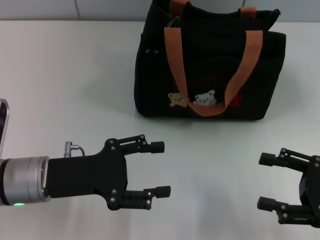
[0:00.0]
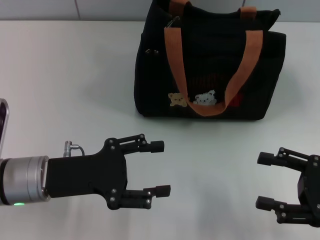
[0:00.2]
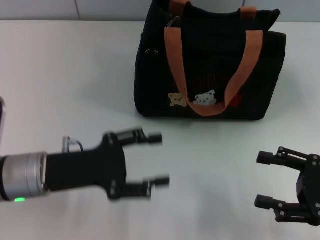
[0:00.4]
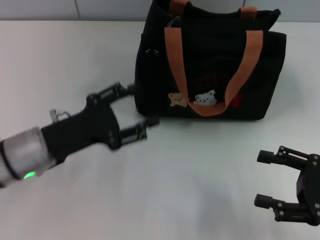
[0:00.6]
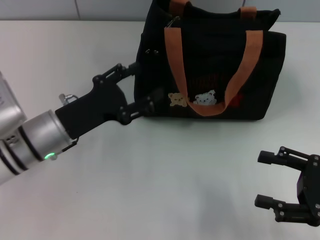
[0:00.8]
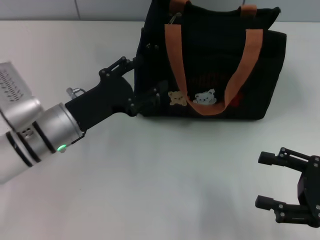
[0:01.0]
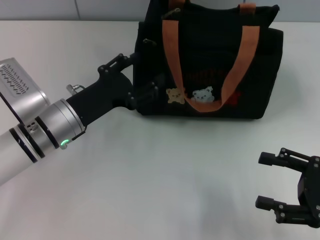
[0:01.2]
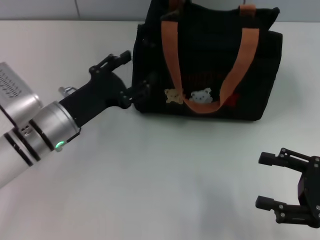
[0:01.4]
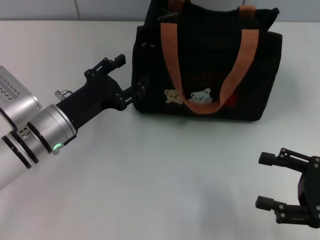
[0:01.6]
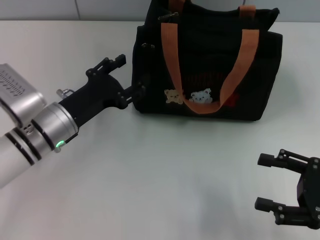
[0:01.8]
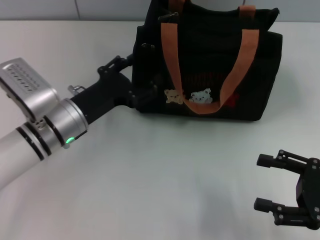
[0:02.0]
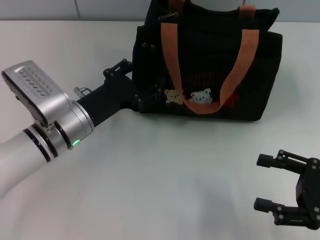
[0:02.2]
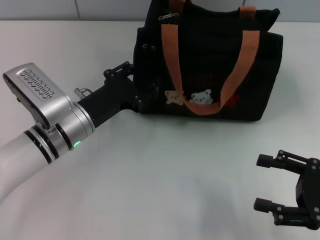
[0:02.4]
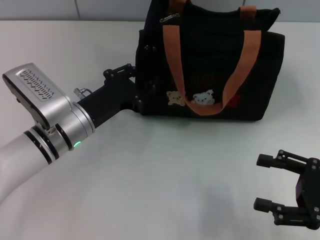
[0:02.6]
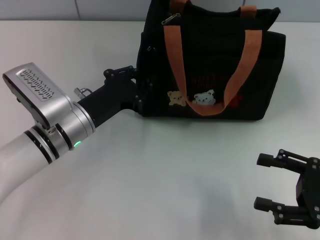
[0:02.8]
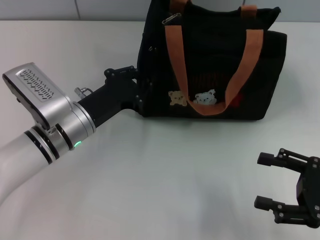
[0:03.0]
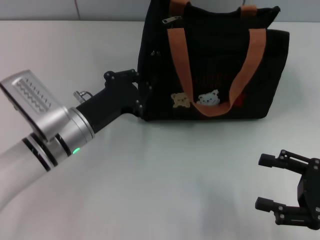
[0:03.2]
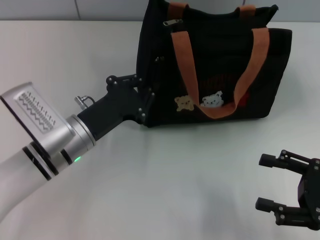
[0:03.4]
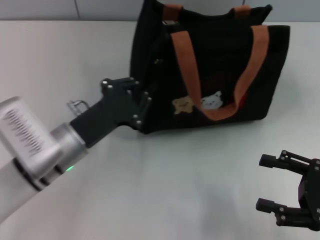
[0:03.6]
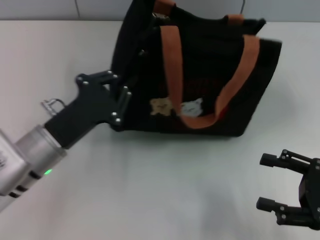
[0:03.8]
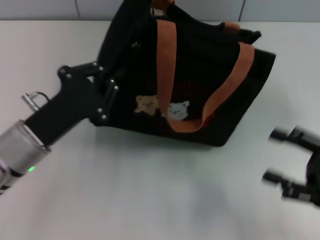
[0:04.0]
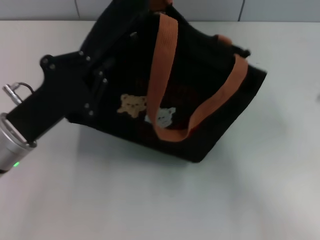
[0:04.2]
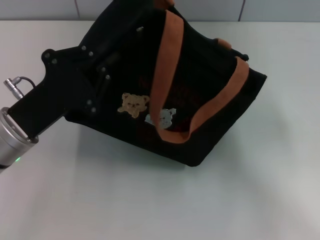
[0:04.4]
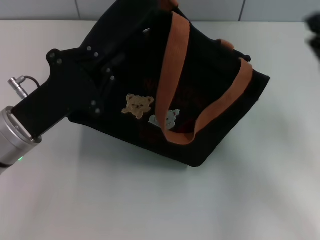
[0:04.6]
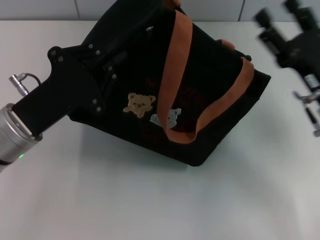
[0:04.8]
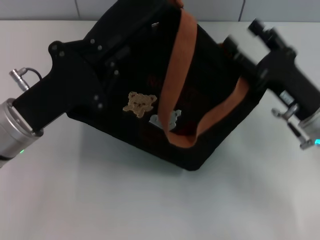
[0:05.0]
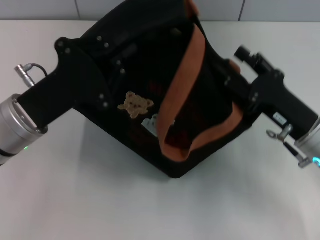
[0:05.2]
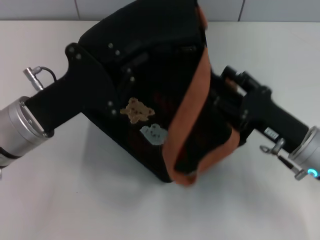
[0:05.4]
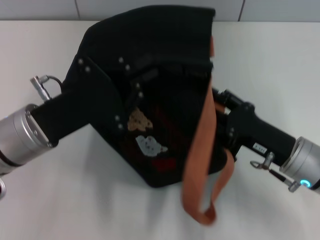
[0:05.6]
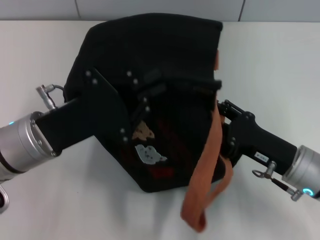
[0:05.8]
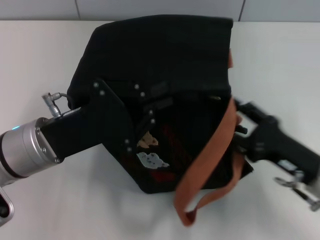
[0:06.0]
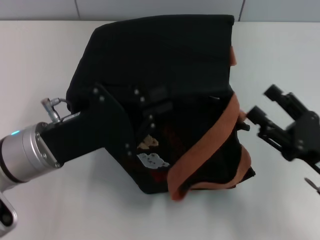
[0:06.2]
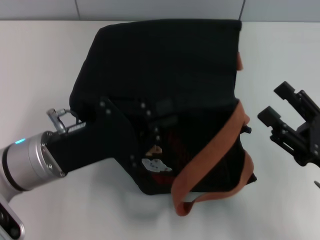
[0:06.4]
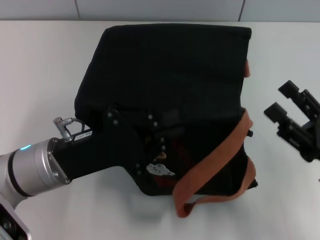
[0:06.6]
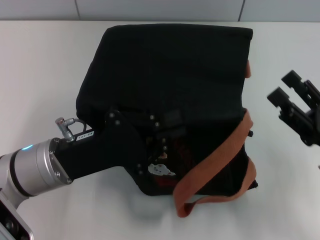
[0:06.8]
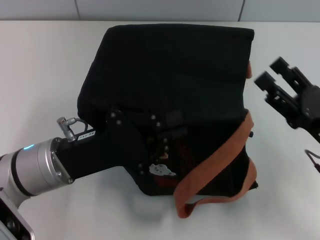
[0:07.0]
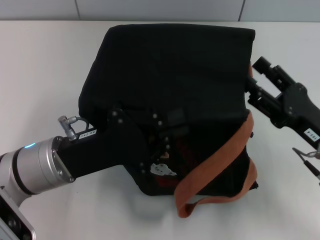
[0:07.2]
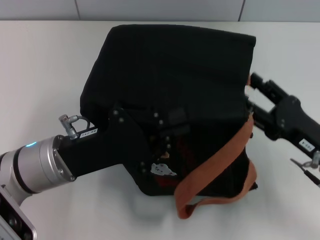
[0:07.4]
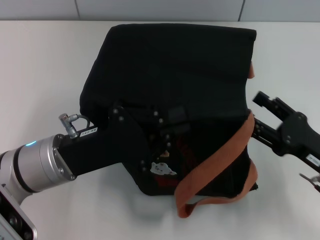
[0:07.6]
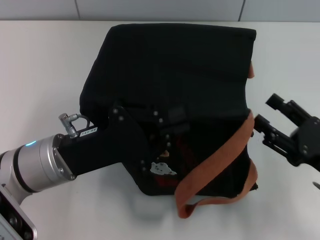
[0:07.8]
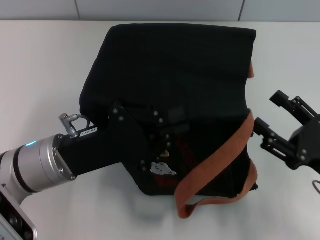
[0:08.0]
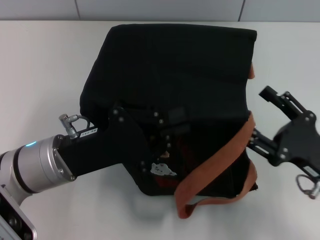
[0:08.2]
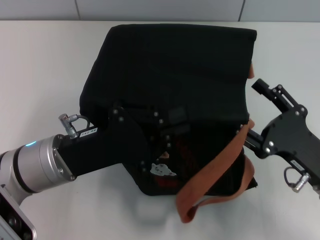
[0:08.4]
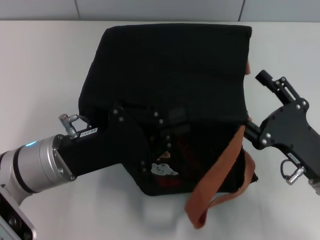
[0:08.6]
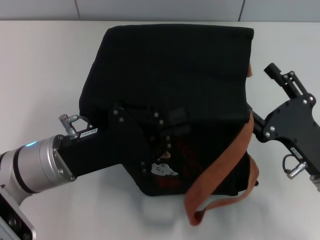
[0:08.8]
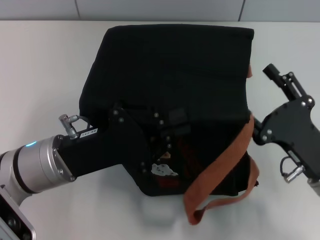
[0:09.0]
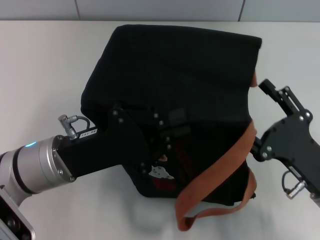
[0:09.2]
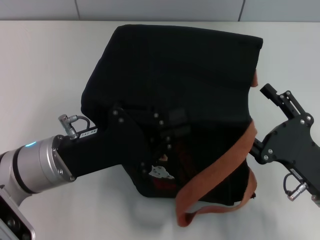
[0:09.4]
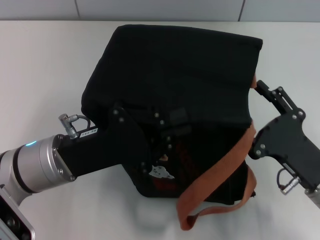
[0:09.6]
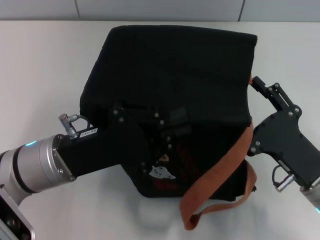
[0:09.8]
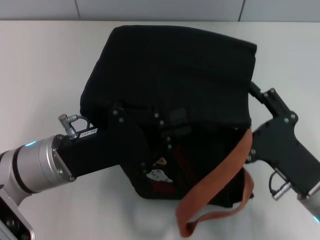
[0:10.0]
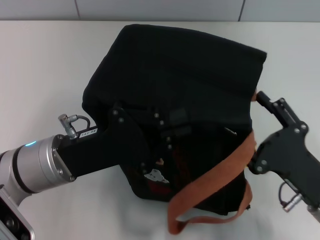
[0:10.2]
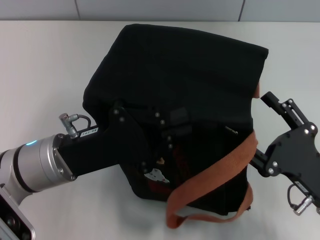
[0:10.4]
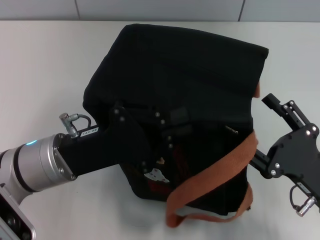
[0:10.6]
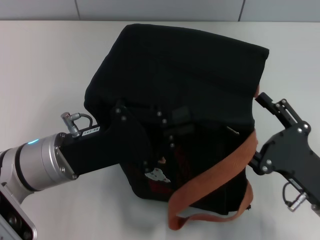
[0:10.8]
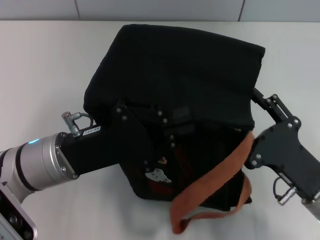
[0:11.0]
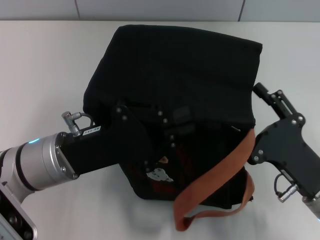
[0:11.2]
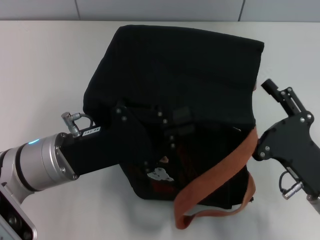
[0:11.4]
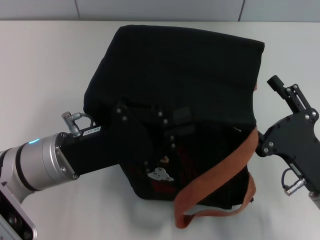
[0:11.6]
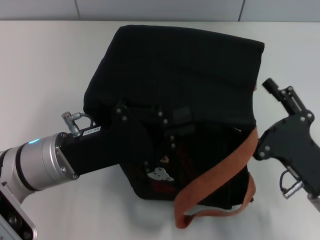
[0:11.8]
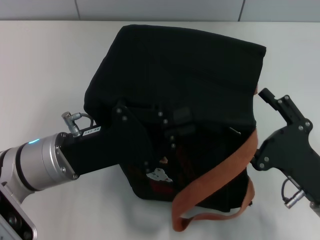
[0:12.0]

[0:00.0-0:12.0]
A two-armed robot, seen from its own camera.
0:00.0 to 0:01.6: The left gripper moves forward, about 5 cm.
0:01.6 to 0:03.0: The left gripper closes up.
0:03.0 to 0:04.4: The left gripper heads to the left and backward, covering about 10 cm.
0:04.4 to 0:06.0: The right gripper travels to the left by about 5 cm.
0:09.0 to 0:12.0: The grippers move only a little.

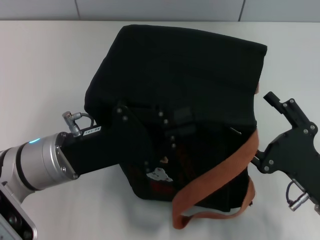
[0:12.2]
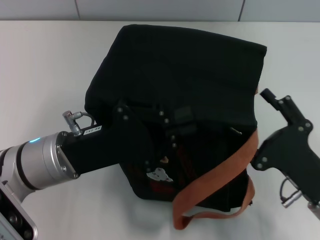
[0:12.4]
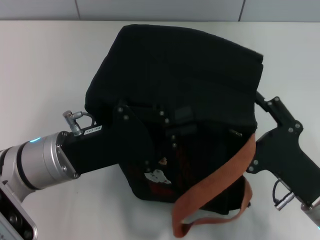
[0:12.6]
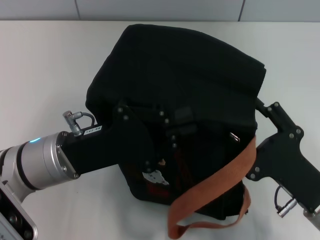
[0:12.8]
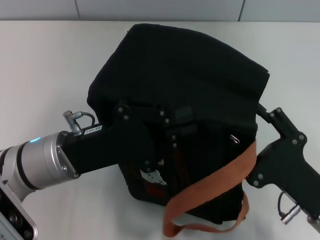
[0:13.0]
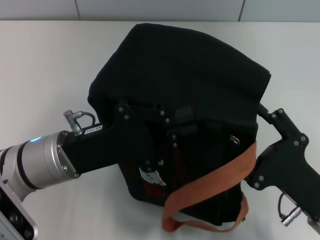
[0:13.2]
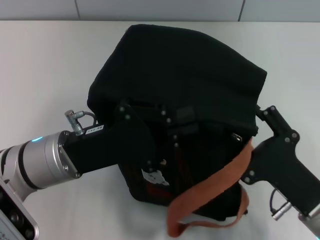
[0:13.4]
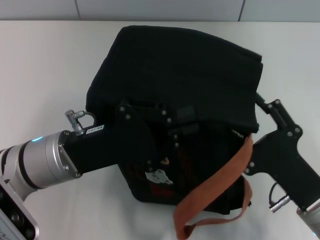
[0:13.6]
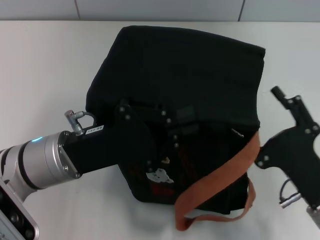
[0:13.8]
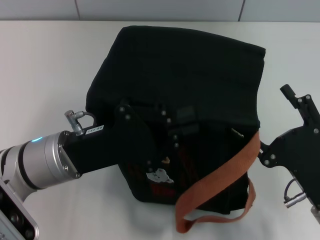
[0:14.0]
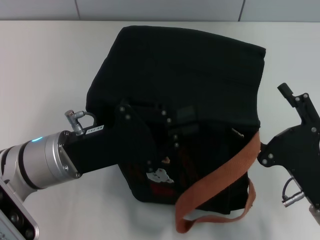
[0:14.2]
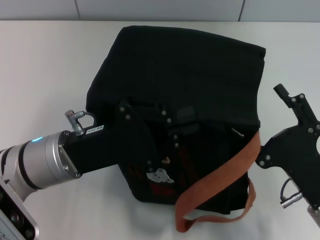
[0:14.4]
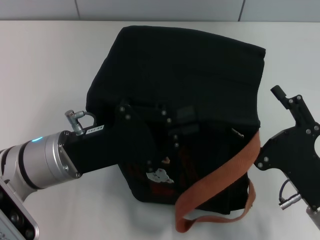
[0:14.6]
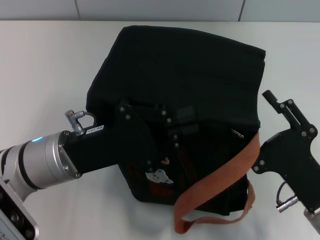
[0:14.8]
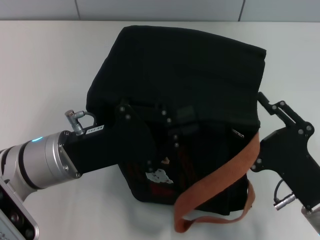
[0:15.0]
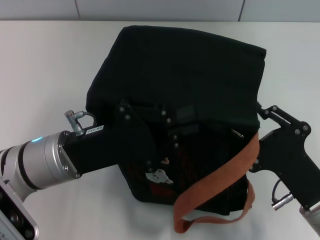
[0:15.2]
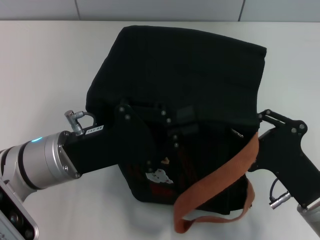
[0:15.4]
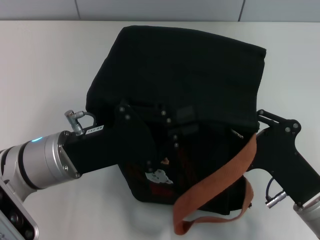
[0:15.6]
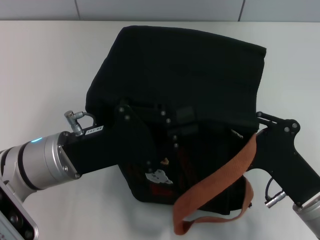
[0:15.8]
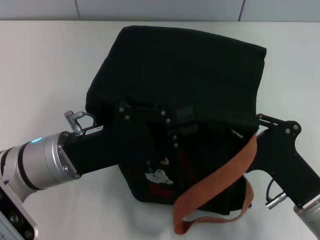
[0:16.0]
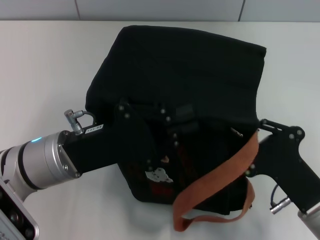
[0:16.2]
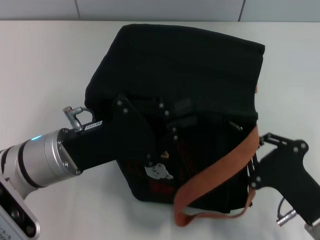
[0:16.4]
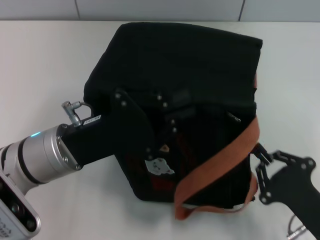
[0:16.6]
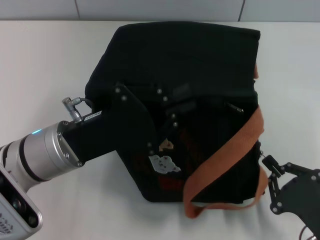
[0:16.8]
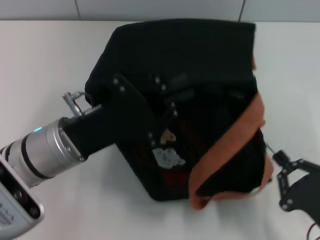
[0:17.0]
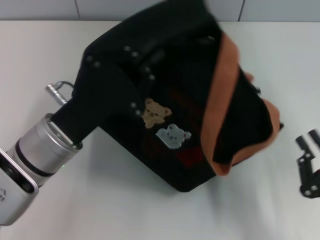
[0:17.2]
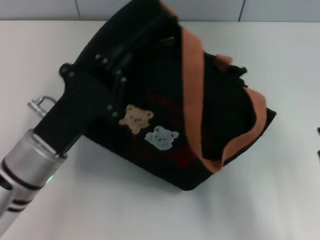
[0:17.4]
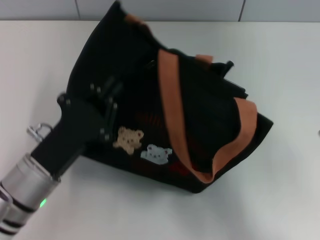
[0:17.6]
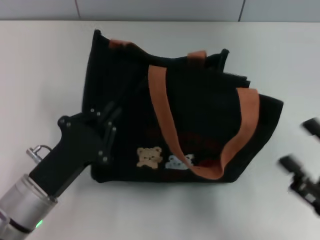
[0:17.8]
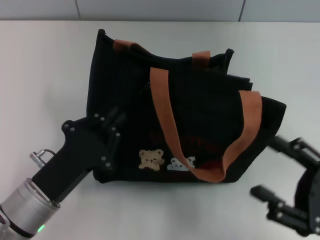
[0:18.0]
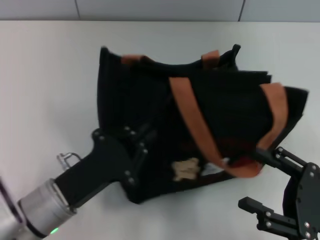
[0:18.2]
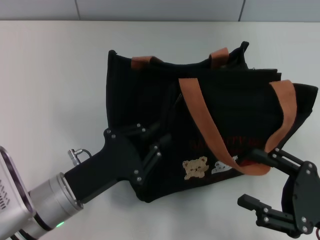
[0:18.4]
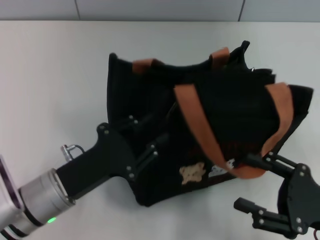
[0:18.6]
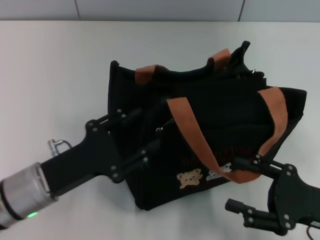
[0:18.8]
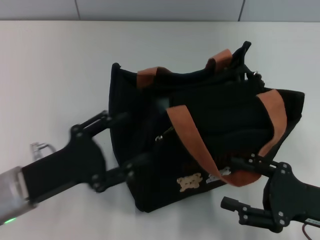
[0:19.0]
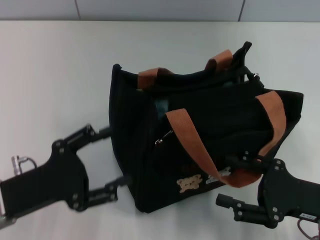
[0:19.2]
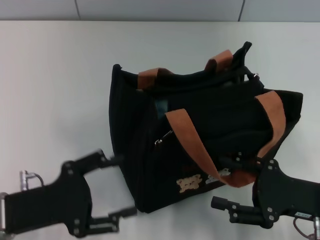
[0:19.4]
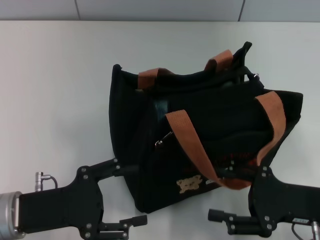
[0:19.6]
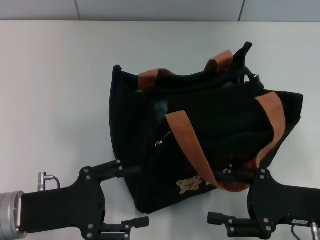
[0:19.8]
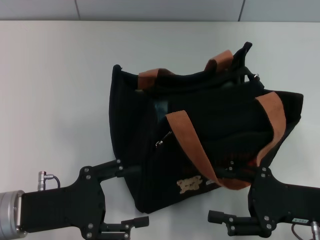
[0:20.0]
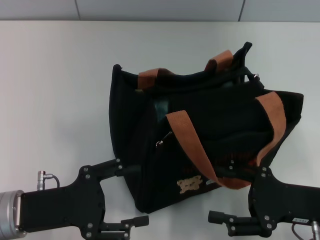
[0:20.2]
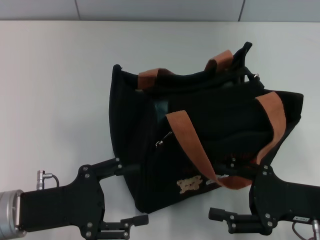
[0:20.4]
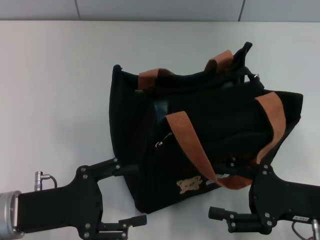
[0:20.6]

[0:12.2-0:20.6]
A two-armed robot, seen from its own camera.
Step, 0:12.2 to 0:17.0: Pull open the zipper with your right hand.
Step, 0:17.2 to 0:18.8: Grab the bag with your left hand.
0:12.2 to 0:15.0: There are only small adjustments of the grippers.
0:15.0 to 0:16.4: The right gripper closes up.
0:16.4 to 0:17.8: The left gripper shifts about 10 cm downward and backward. Meanwhile the right gripper is displaced to the right by approximately 5 cm, and opens up.
0:17.8 to 0:19.2: The left gripper heads to the left, covering some 5 cm, and opens up. Meanwhile the right gripper heads forward, covering about 5 cm.
0:19.2 to 0:20.6: The grippers make only small movements.

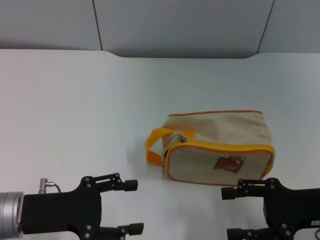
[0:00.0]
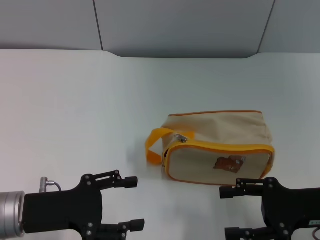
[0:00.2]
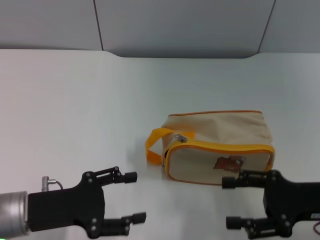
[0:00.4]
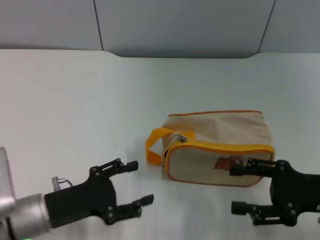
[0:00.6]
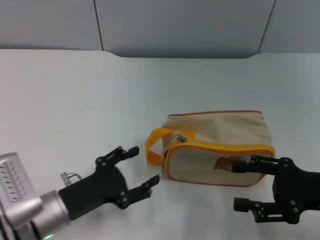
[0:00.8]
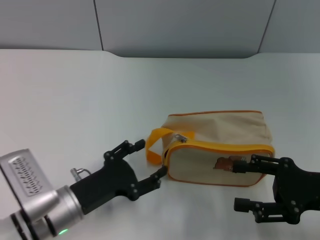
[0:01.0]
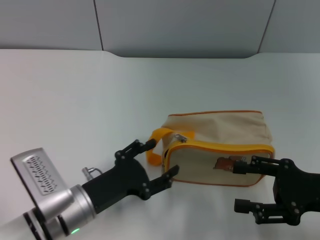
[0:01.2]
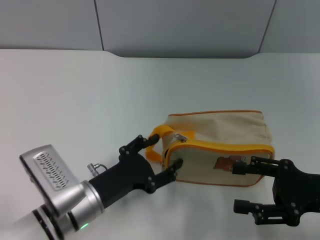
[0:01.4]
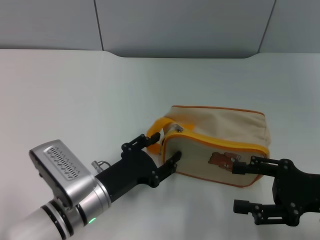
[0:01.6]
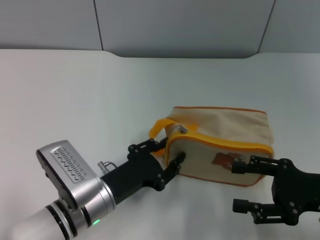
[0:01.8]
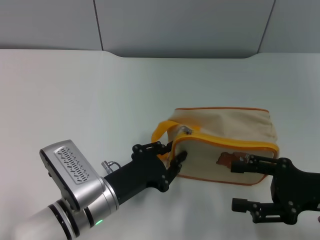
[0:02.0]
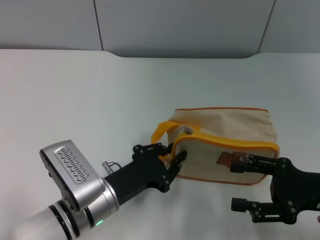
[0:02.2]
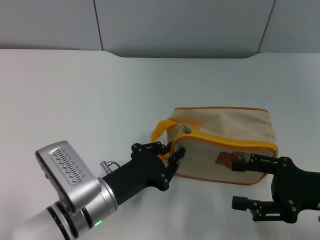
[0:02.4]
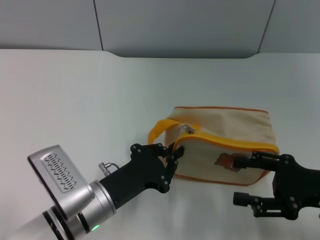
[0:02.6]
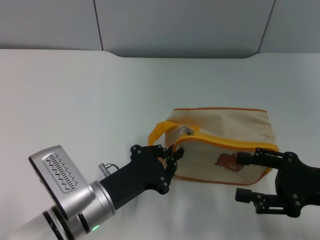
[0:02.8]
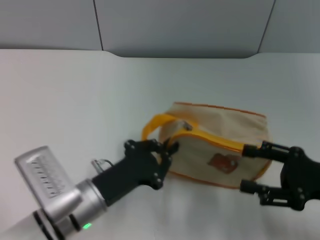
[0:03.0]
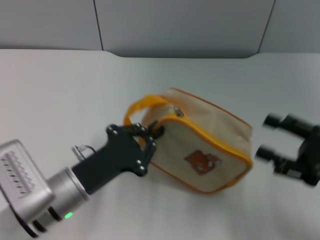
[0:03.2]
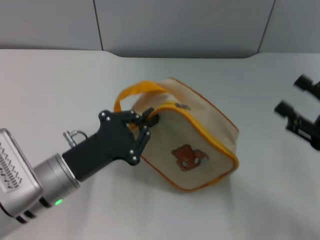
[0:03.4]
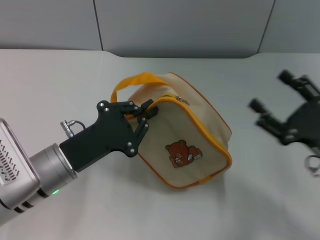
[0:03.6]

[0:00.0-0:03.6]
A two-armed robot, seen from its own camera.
Step, 0:00.0 to 0:03.0: Pick up the bag with left gripper.
0:00.0 to 0:01.8: The left gripper moves to the right and downward, roughly 10 cm.
0:01.8 to 0:03.6: The left gripper goes approximately 5 cm upward, and closes its fingers.
